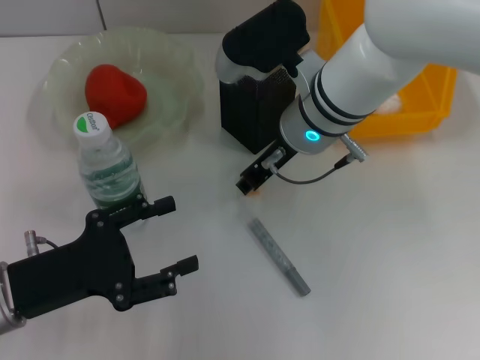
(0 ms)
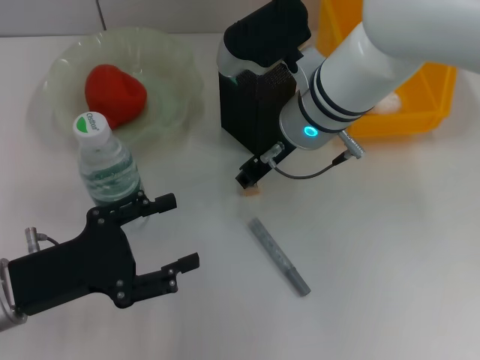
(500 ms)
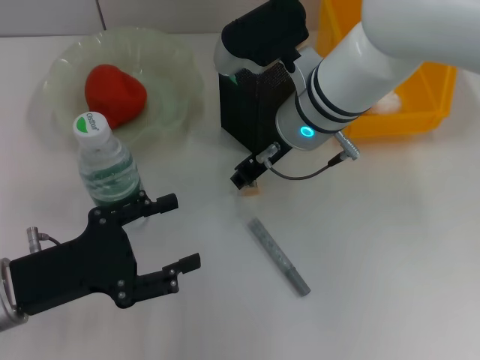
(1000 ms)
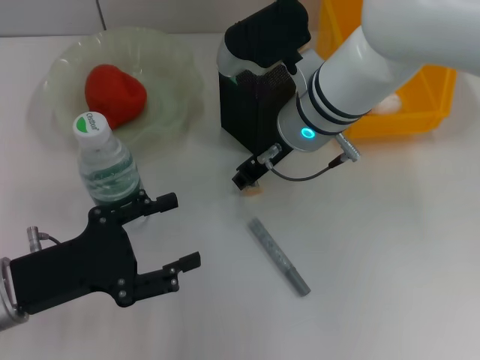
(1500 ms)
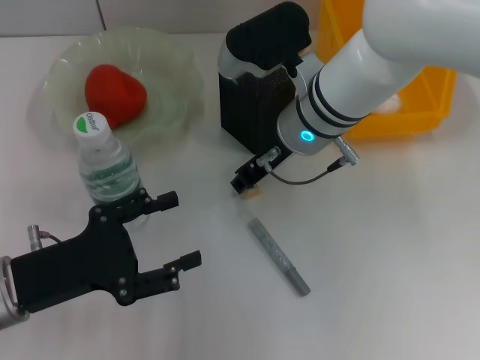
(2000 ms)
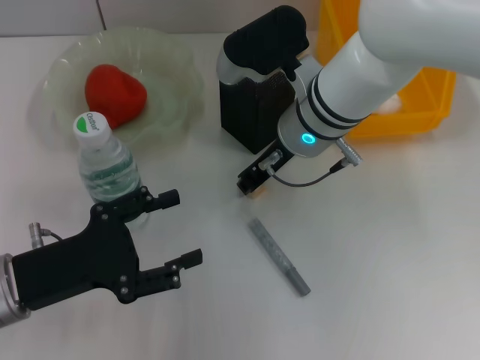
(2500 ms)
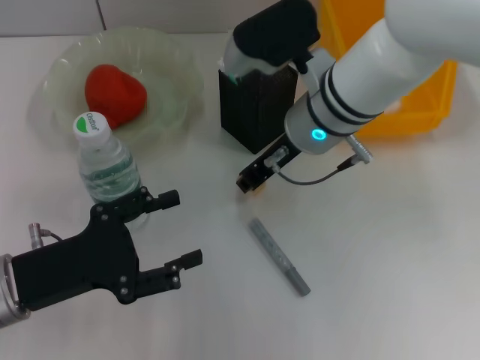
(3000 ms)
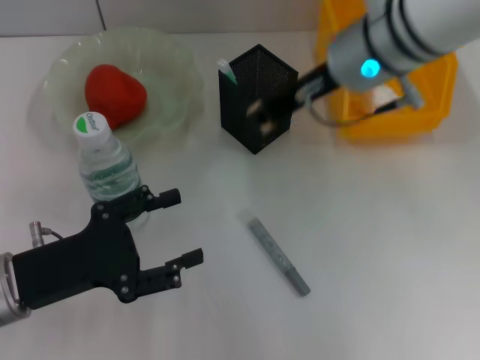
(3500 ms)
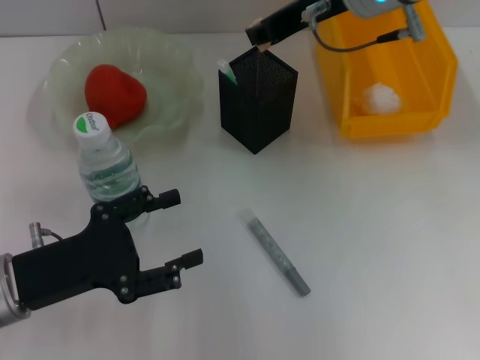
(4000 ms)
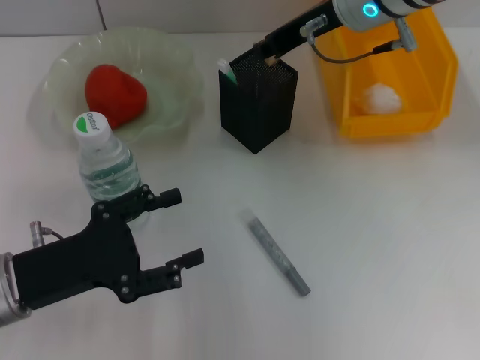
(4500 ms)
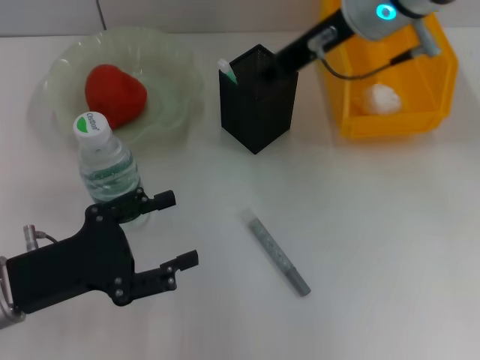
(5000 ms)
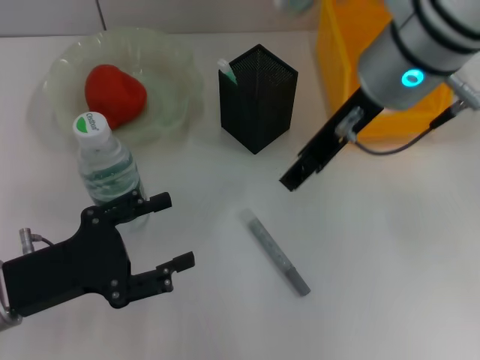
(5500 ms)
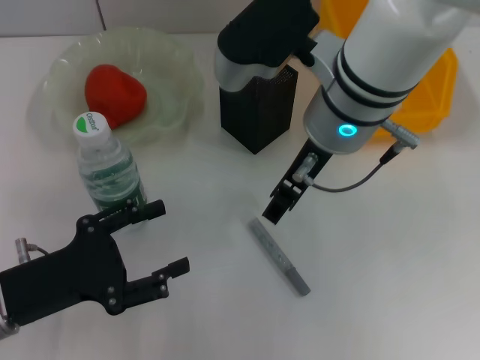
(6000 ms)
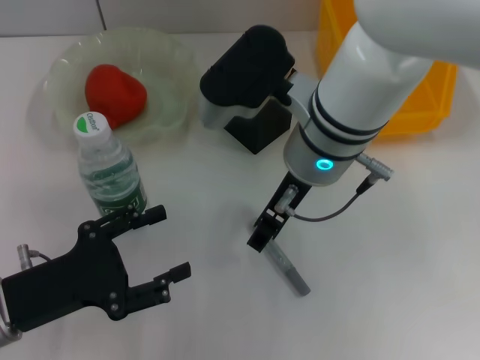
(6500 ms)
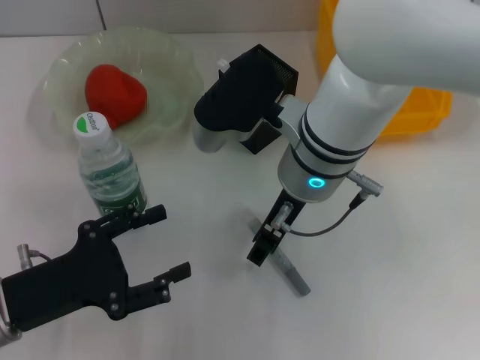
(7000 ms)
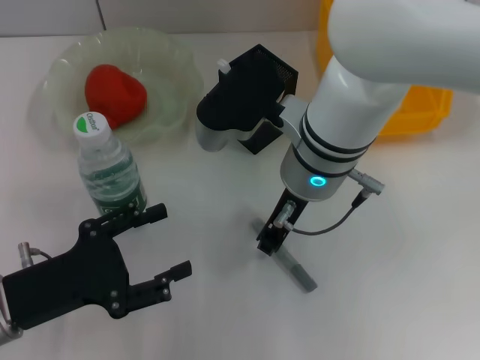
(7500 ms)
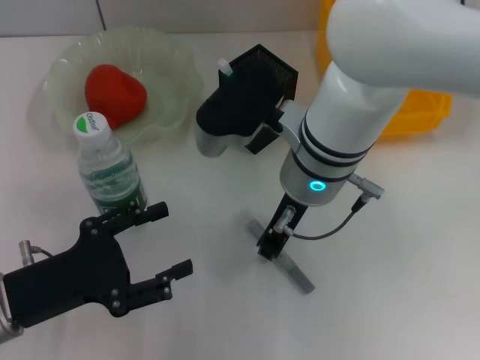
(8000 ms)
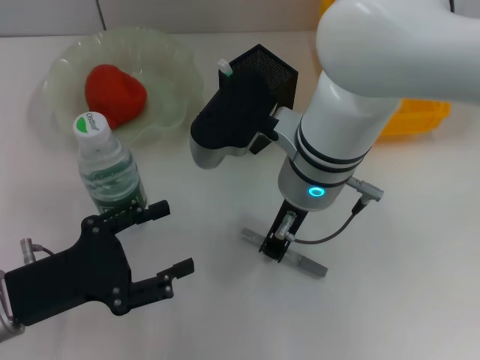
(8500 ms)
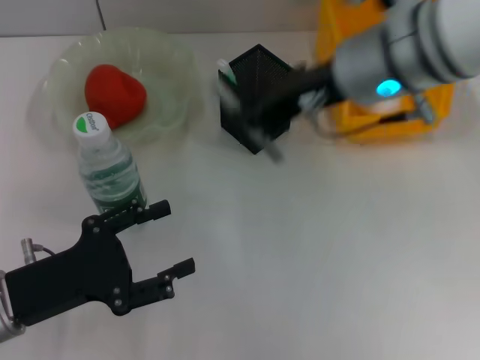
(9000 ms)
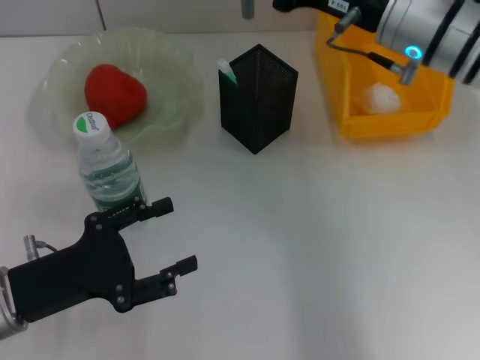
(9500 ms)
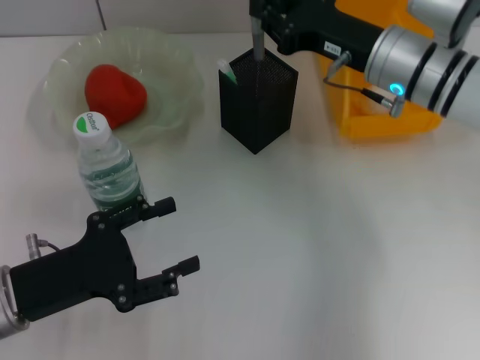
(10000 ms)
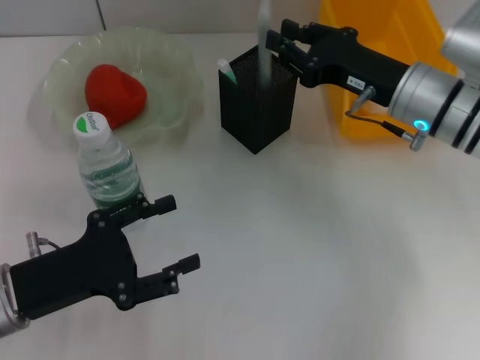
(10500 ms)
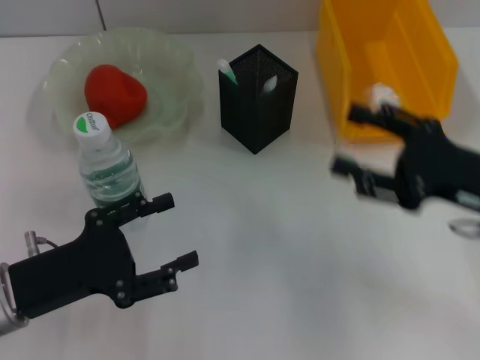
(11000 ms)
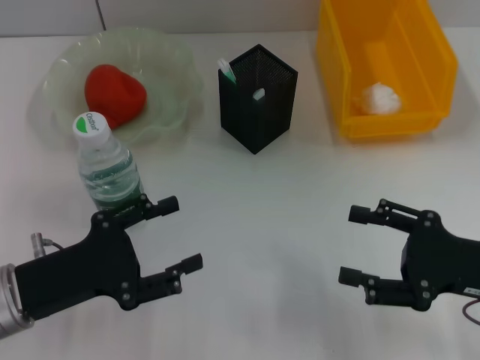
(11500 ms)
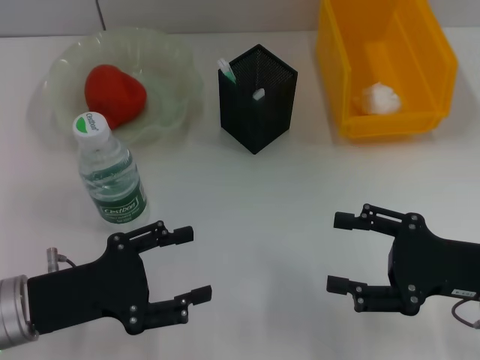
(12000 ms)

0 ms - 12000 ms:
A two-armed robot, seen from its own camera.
Step, 0 ms - 2500 ms: Grab the eraser with the right hand.
Step, 3000 ms - 4500 ms: Put the eraser into the pen holder with the right hand.
Step, 5500 ms - 7500 ms: Grab the gray glue with the right hand.
Step, 8000 ms - 10500 ms: Place the gray glue into the pen holder with the right hand.
0 ms - 2000 ms: Both grippers stay about where they are.
2000 ms - 4000 ms: The right gripper goes approximately 10 cm upward and to the right.
4000 ms - 6000 ms: The right gripper goes approximately 10 cm backward, and opens up.
6000 ms - 8000 ms: The right gripper heads downward, covering roughly 5 cm, and closes.
8000 ms - 10000 ms: The right gripper moves to the right and forward, some 15 cm.
10000 ms - 12000 ms: The right gripper is displaced backward and to the right by about 20 cm, and opens up.

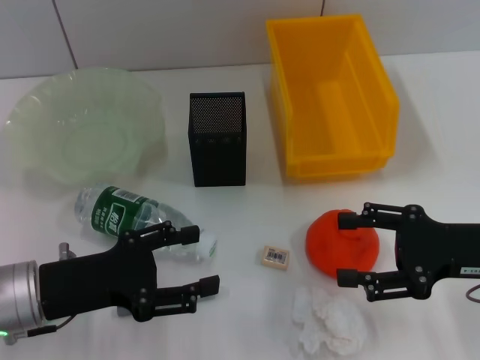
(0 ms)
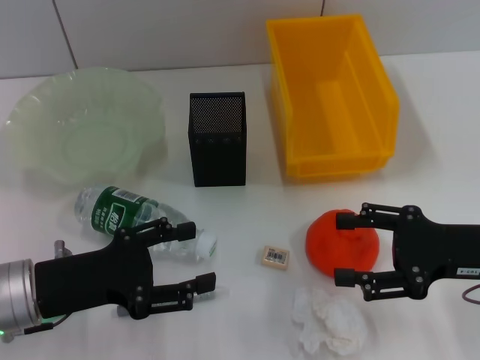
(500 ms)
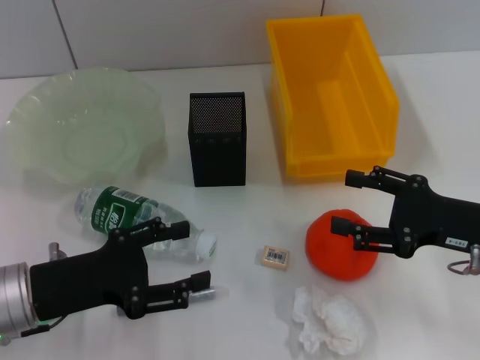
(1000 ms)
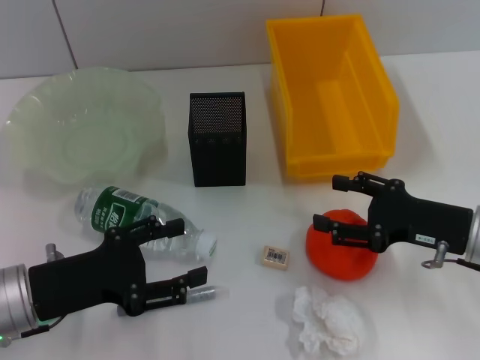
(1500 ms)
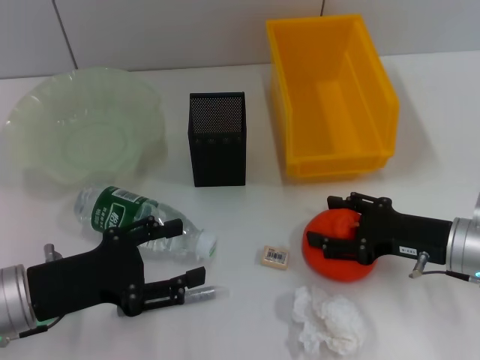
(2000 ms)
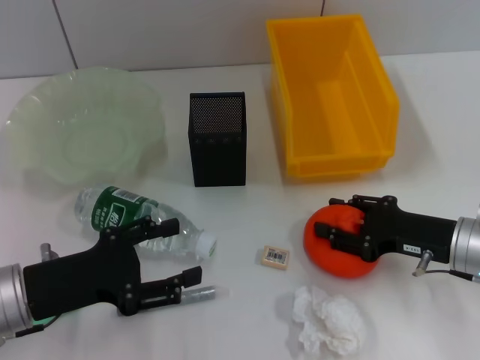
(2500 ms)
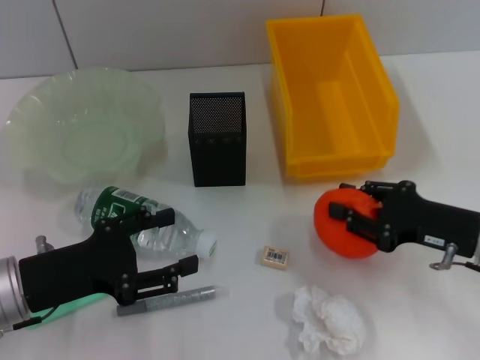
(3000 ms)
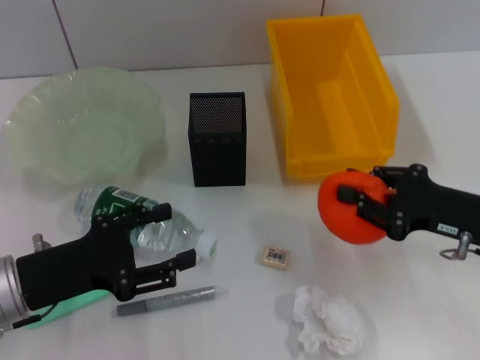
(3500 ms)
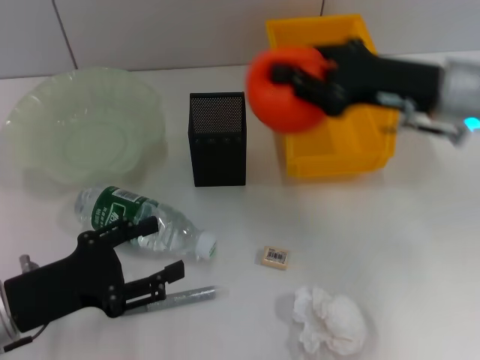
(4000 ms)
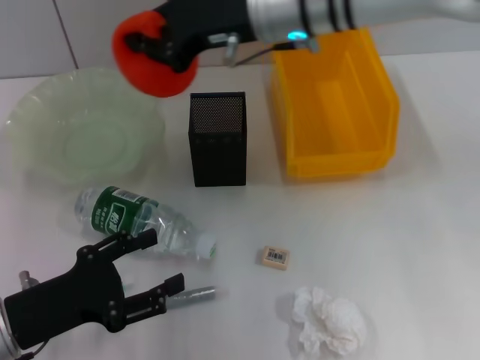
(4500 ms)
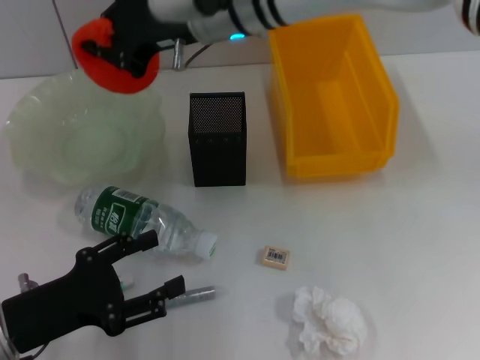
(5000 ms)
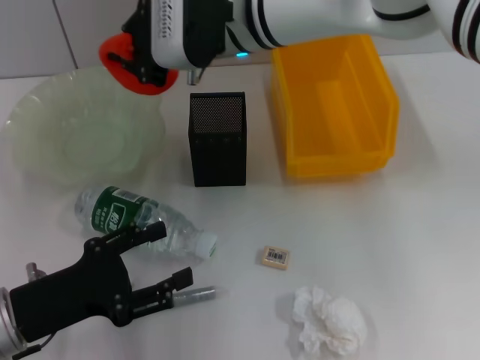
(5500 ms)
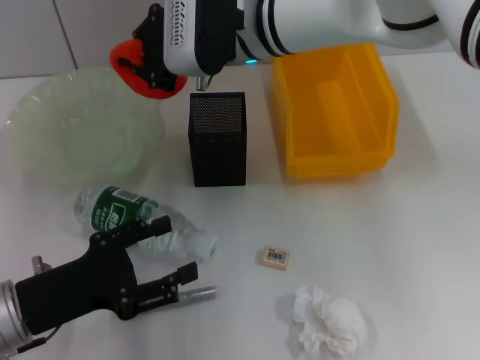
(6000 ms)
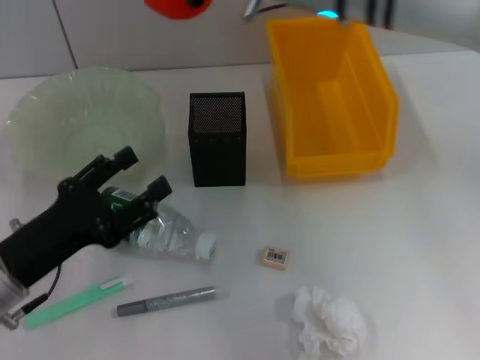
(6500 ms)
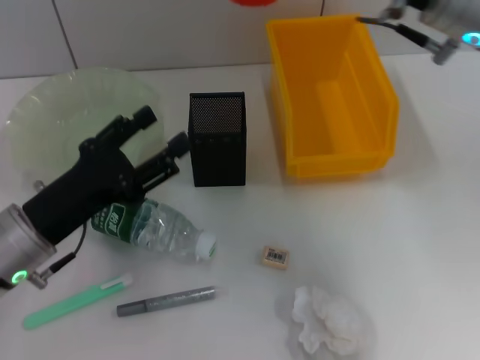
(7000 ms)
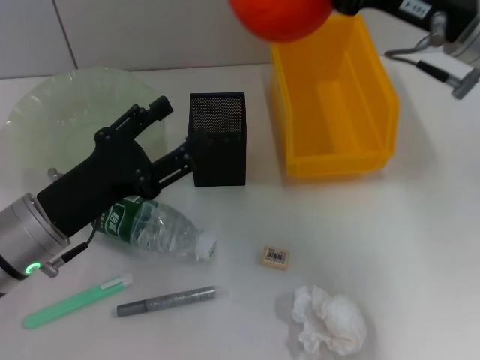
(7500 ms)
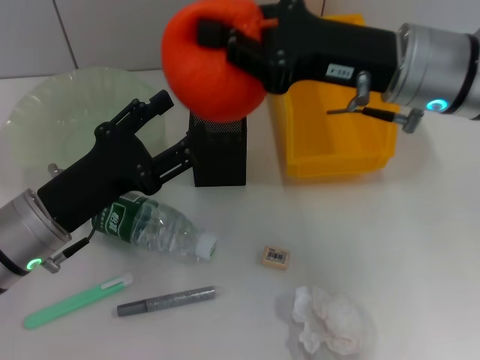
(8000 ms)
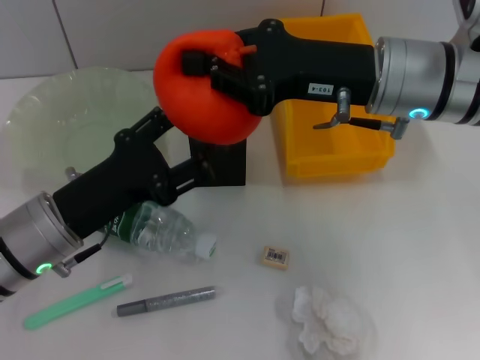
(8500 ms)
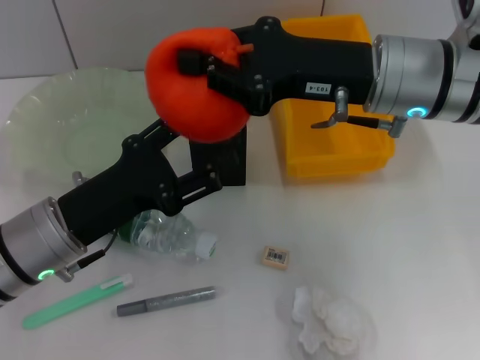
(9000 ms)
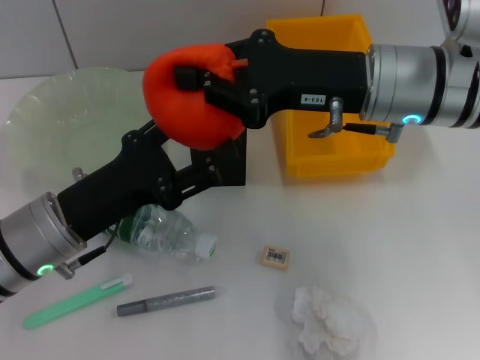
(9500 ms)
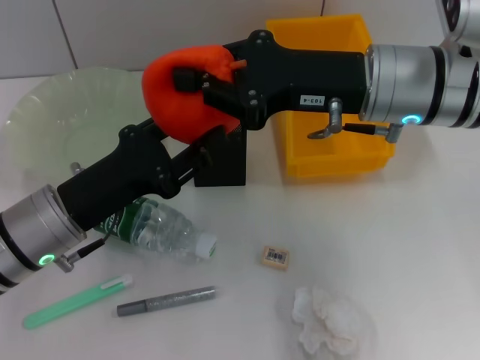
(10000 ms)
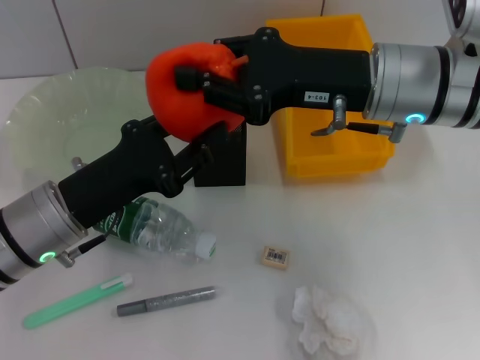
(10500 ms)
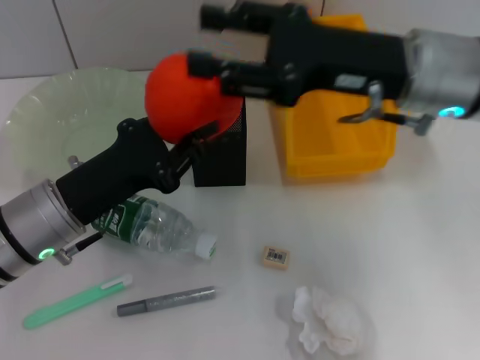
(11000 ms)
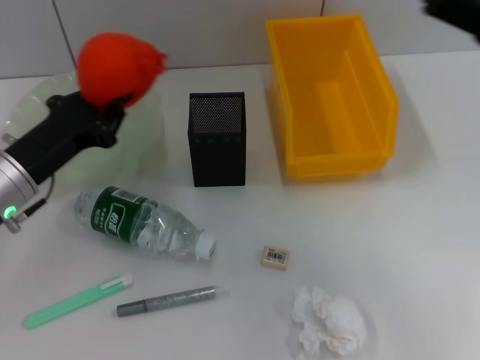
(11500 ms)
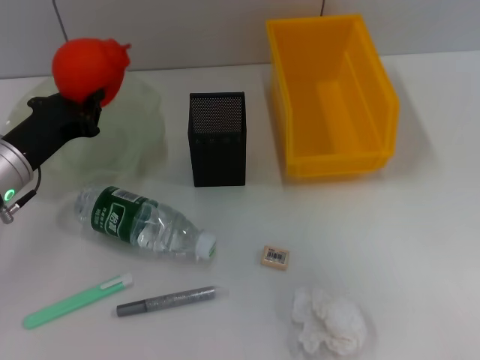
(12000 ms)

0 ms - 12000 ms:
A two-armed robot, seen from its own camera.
Step, 0 ms - 2500 ms: Grab the orange with the right hand.
Step, 3000 ms - 11000 ms: Pass the orange from the right hand to the left hand.
0 ms - 2000 ms: The right gripper moves downward, about 5 cm.
2000 ms - 4000 ms: The right gripper goes some 15 cm upward and forward, and closes up.
4000 ms - 6000 ms: The right gripper travels to the left and forward by about 20 cm.
6000 ms - 8000 ms: The right gripper shifts approximately 15 cm to the right and backward; the left gripper is displaced forward by approximately 5 cm.
10000 ms - 12000 ms: The left gripper goes roughly 10 cm forward and to the left, and closes up; the right gripper goes some 20 cm to the right and backward, and opens.

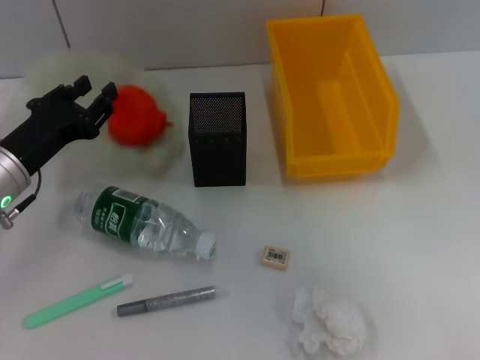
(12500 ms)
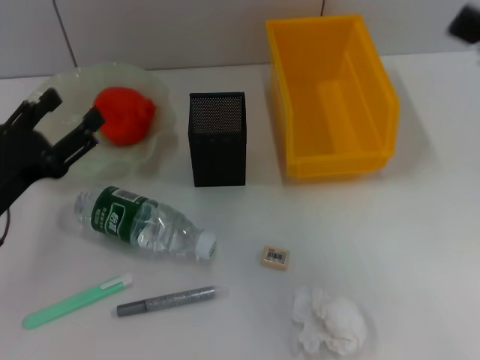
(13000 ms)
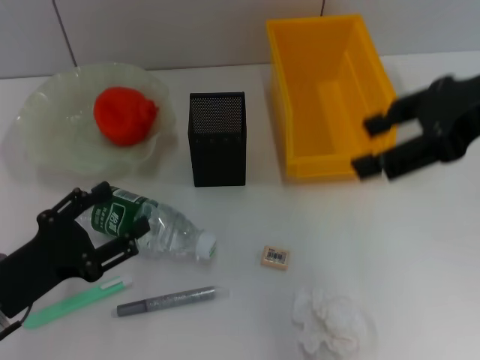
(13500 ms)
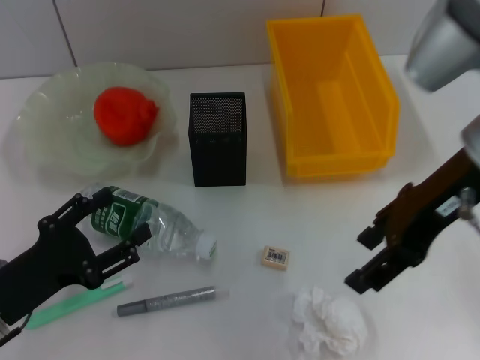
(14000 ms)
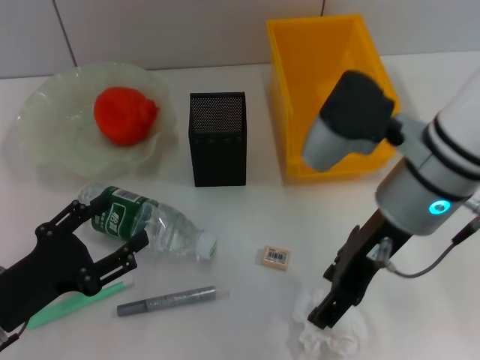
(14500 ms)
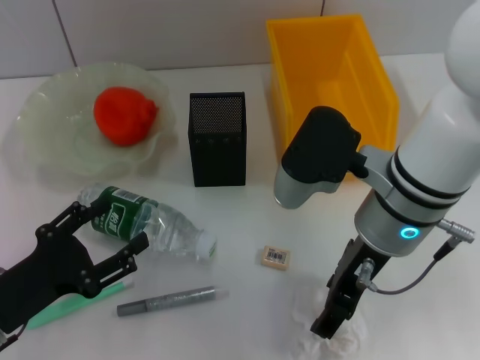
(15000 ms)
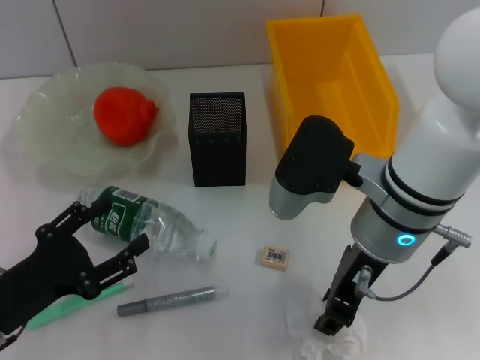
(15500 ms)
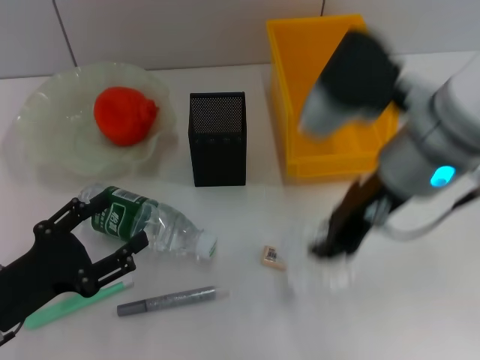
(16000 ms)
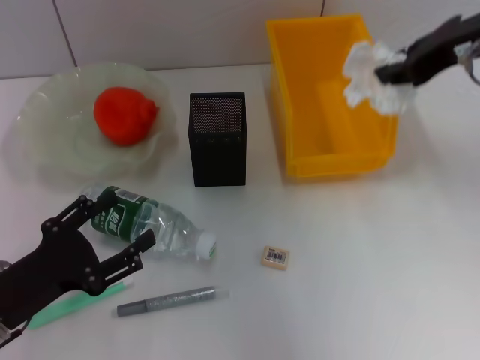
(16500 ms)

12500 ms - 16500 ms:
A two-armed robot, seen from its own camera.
Step, 13500 ms - 15500 ms: Grab the paper ball with the right hand.
12500 ms - 14500 ms: The left gripper shifts about 15 cm backward, and opens its fingers. The right gripper is displaced to the left by about 20 cm.
14500 ms - 16500 ms: The right gripper is displaced to the right, upward and forward by about 15 cm, and closes up.
